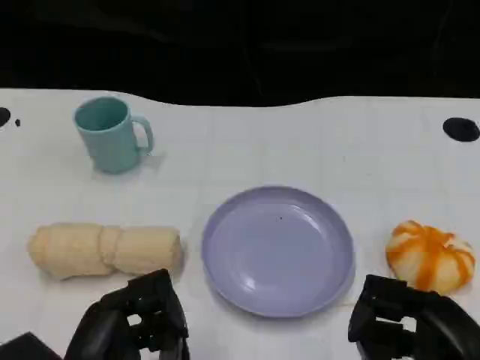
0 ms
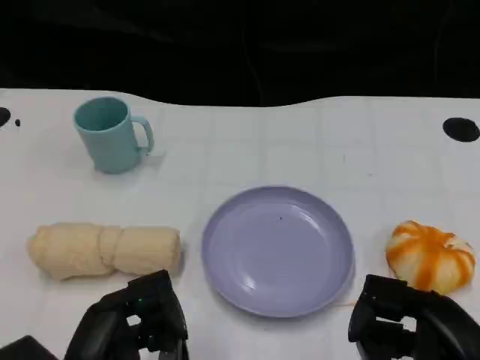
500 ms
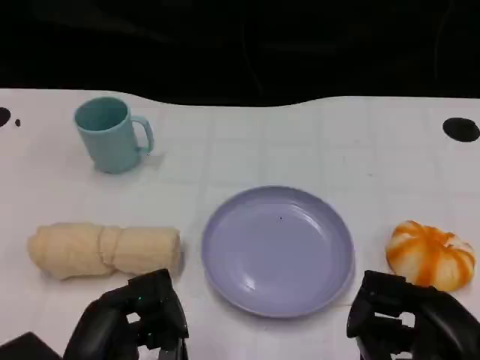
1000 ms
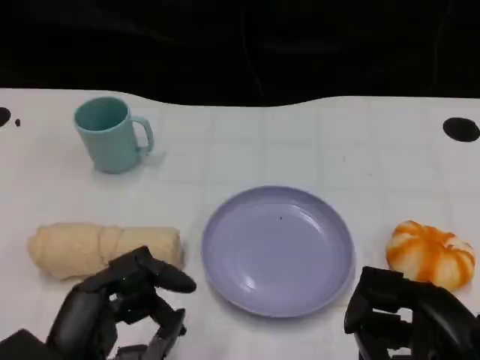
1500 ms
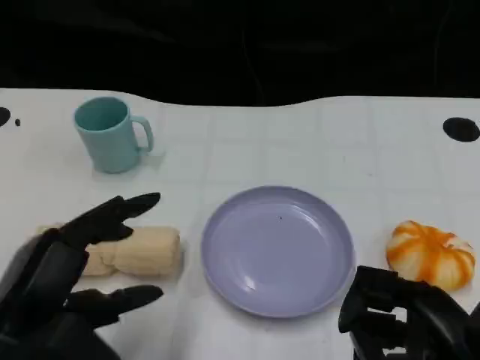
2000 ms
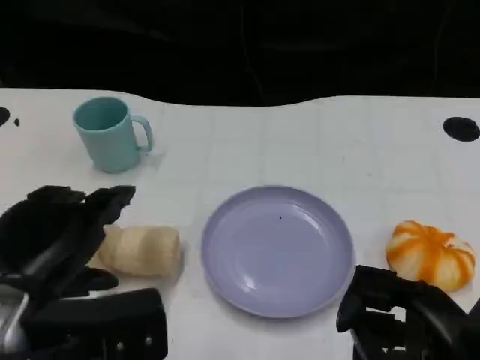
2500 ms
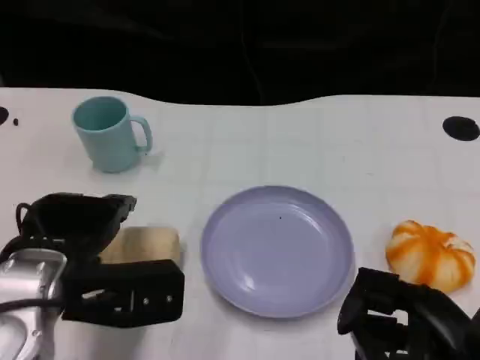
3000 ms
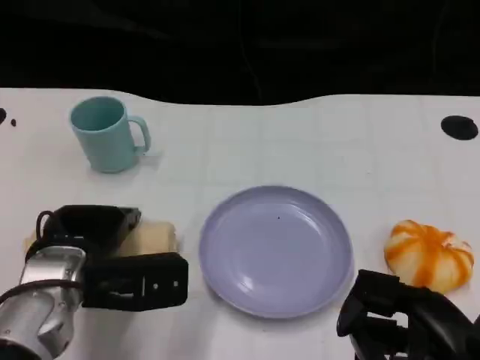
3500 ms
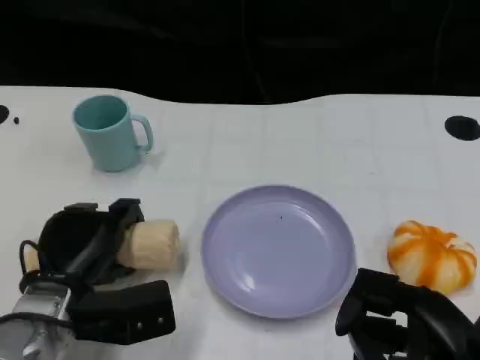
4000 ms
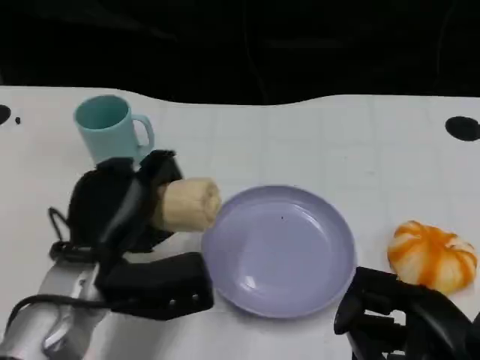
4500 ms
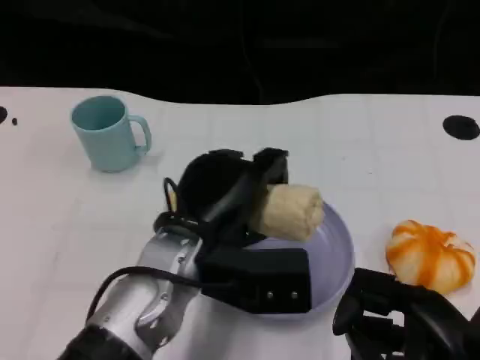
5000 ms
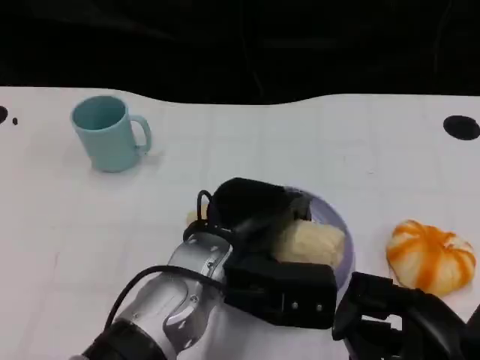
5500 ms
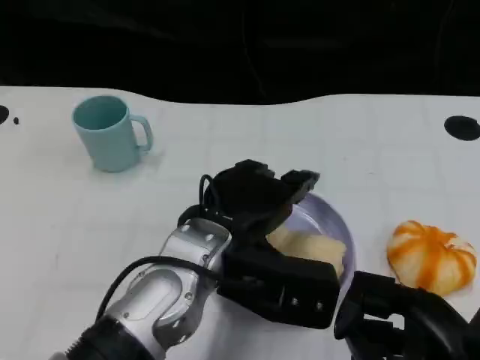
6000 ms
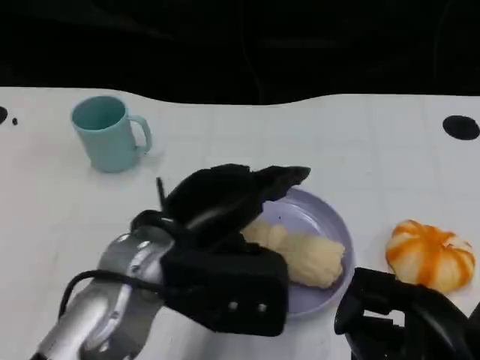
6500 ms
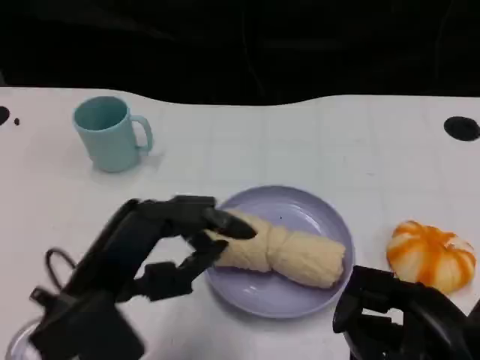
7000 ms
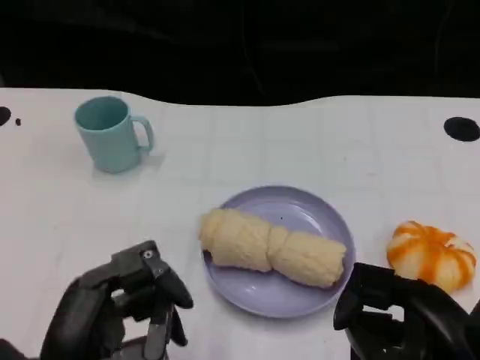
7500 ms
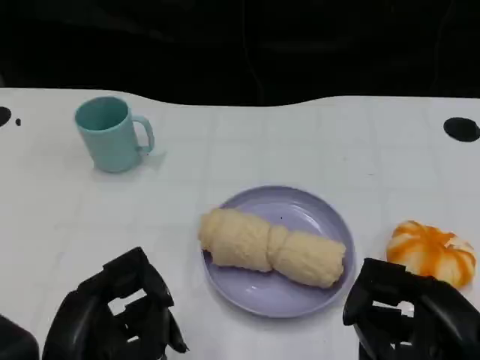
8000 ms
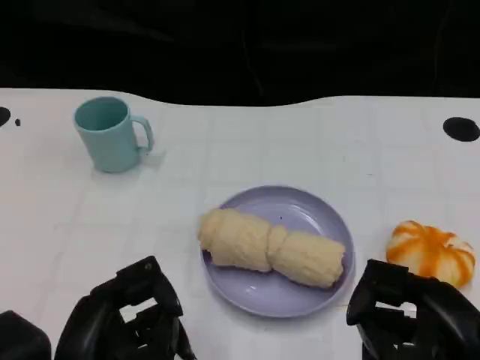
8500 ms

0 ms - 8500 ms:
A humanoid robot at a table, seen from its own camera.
Task of the whole recording: Grasp the towel on the left side of the plate with the left hand and place it into the plate.
0 ms - 2000 ms: The left hand goes approximately 5 cm upward.
2000 ms - 4000 ms: The left hand moves downward and forward, about 15 cm.
4000 ms - 6500 ms: The left hand travels upward and to the right by some 15 cm.
6500 ms - 8500 ms: The left hand goes approximately 15 cm backward, to the left and downward.

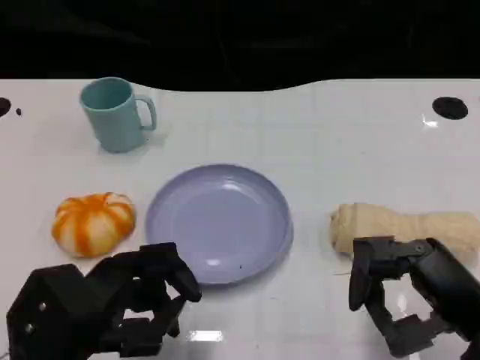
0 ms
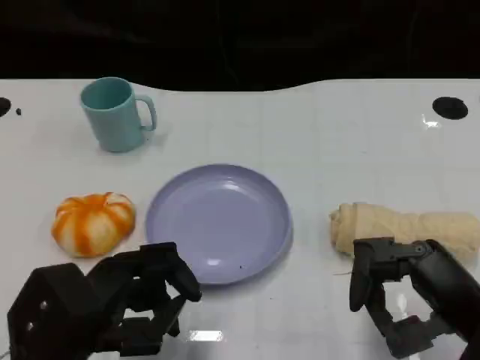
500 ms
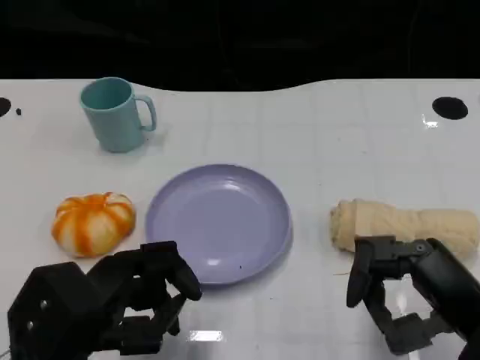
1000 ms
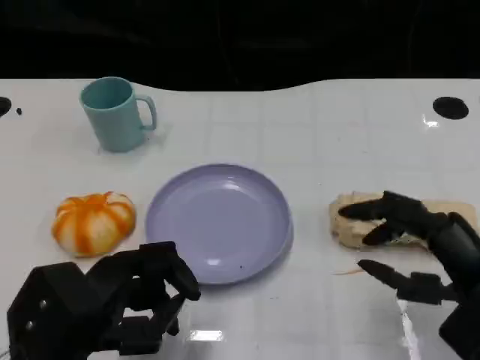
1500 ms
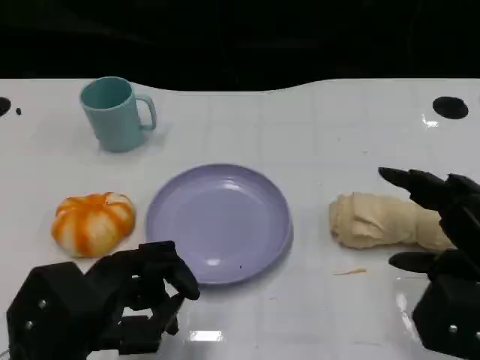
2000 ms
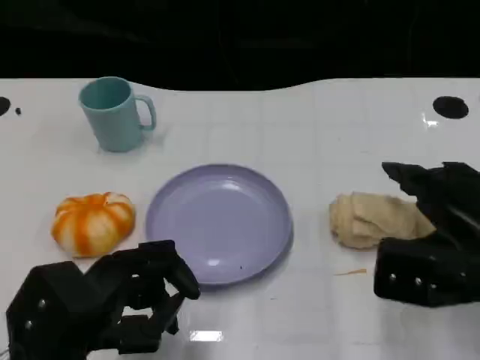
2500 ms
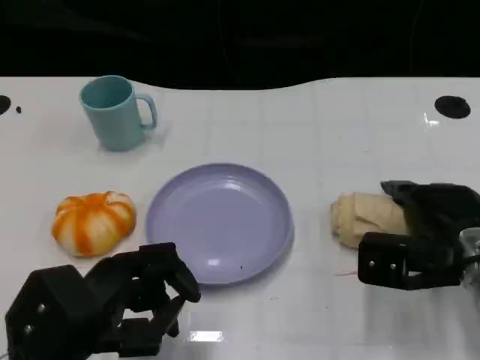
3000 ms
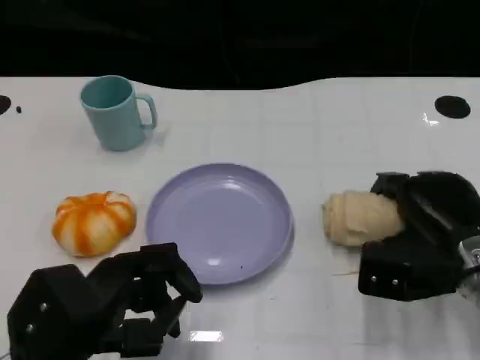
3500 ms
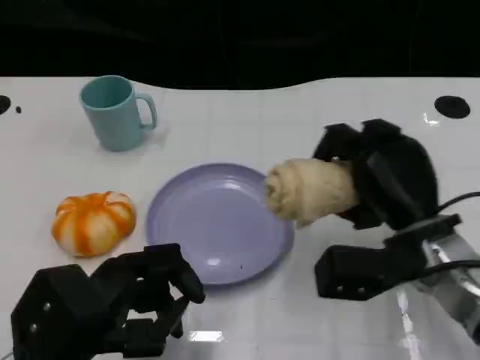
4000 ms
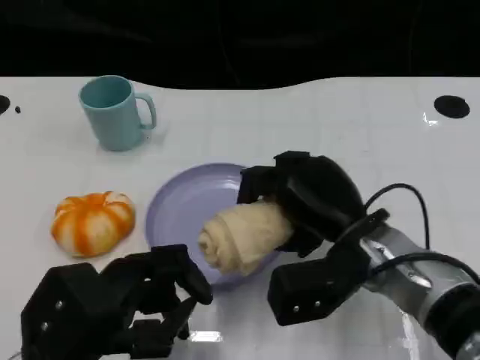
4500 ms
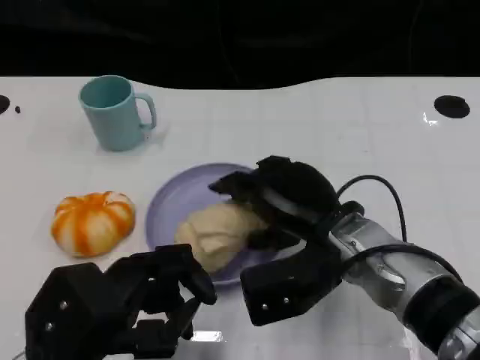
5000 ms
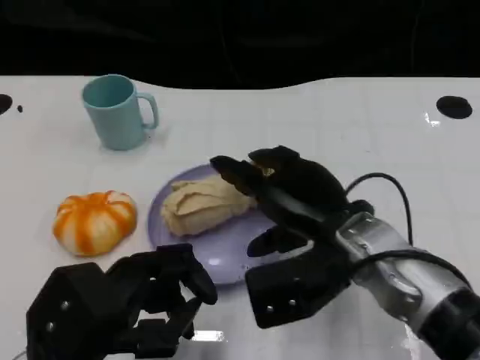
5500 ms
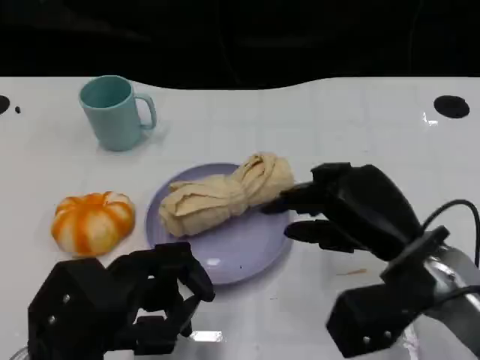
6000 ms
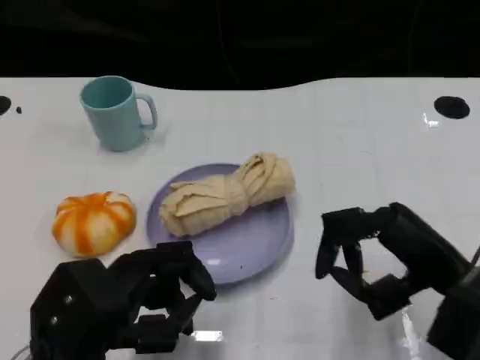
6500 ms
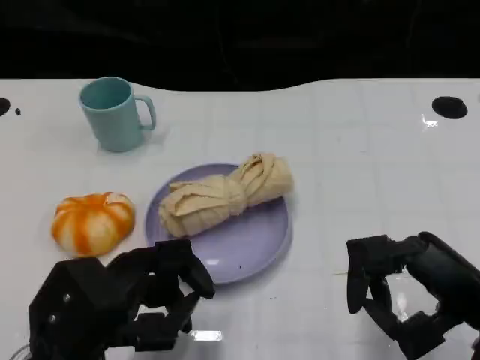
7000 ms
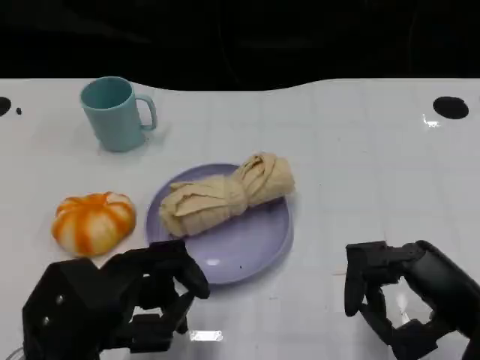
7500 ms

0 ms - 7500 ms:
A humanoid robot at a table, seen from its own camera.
Task of the whole recording: Grasp the towel on the left side of the plate with the left hand and place it into the plate.
2000 ms - 4000 ms: The right hand heads to the left and forward, covering roughly 10 cm.
4000 ms - 5500 ms: The right hand heads to the left, covering some 5 cm.
5500 ms - 7500 ms: The right hand heads to the right and backward, covering approximately 15 cm.
